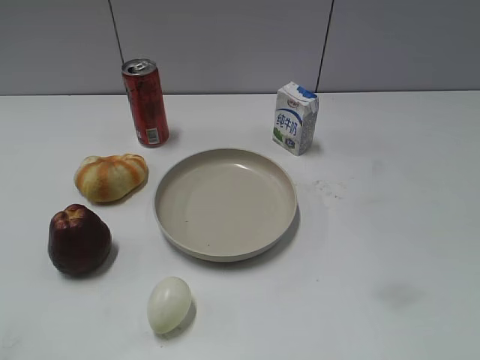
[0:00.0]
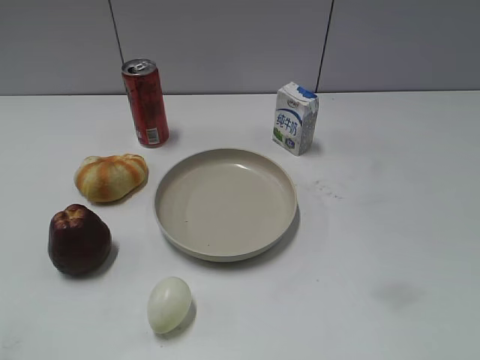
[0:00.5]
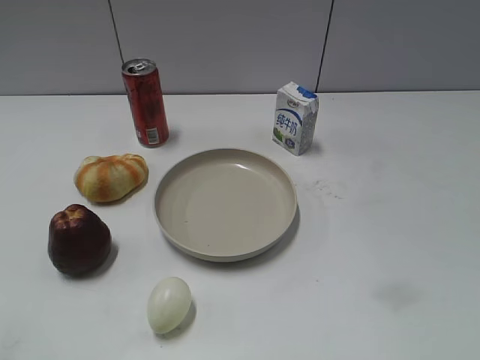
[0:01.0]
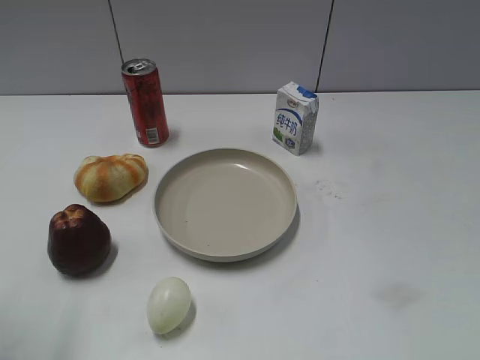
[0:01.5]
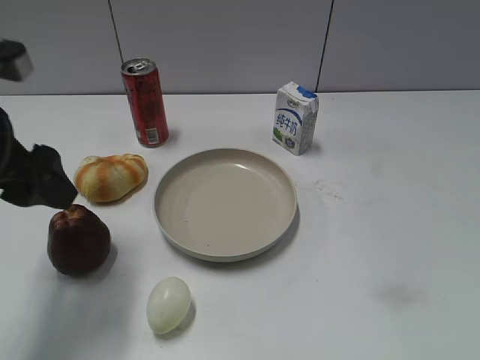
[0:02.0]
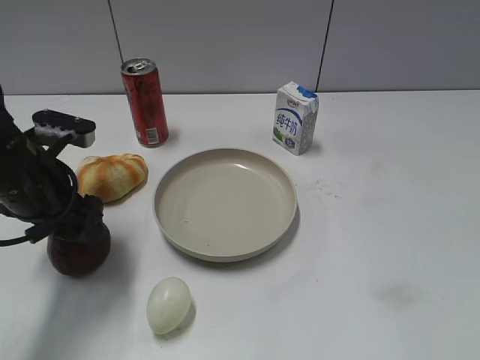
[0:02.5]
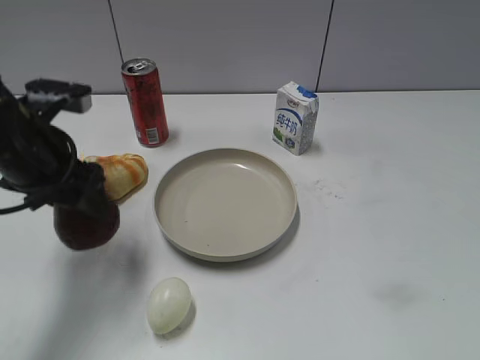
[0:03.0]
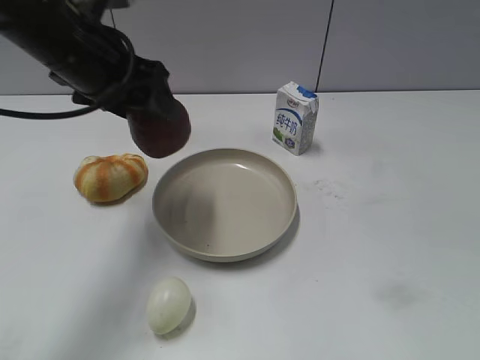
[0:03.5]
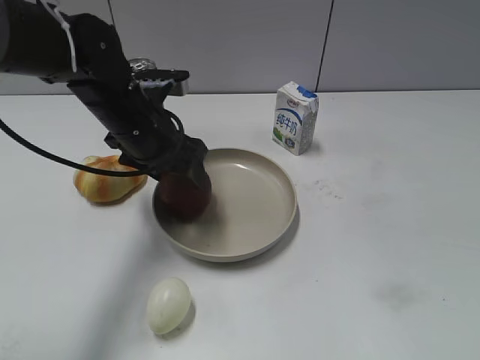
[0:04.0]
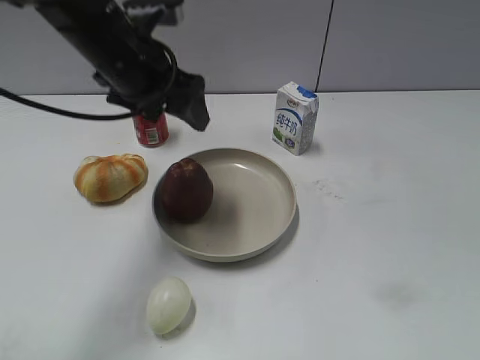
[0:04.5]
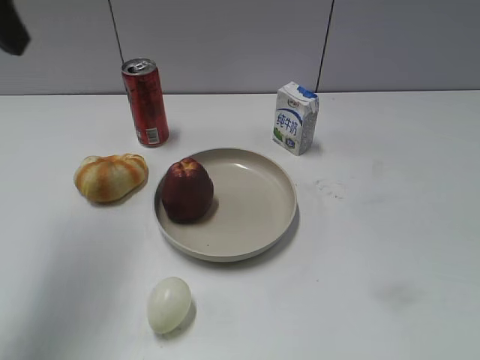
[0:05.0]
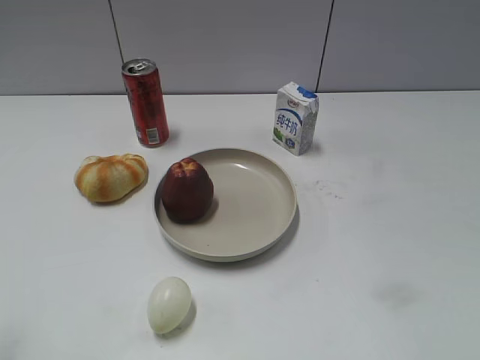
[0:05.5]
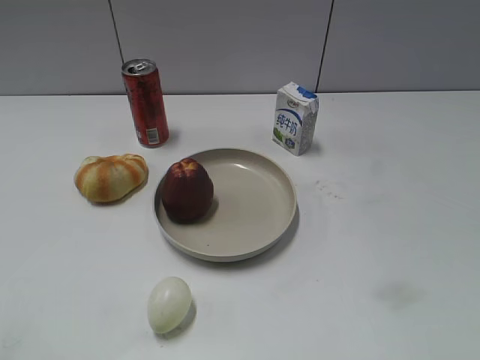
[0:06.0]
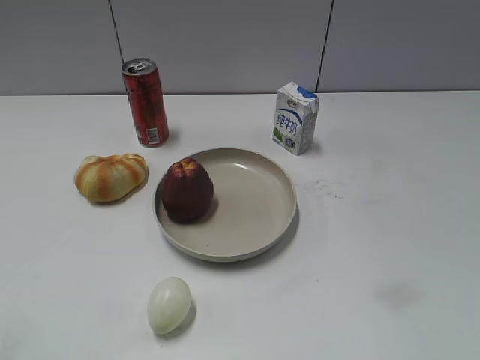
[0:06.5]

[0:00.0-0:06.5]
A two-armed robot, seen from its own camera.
Step, 0:01.5 to 0:02.5: Grasp the apple with left gripper.
Step, 0:03.0 to 0:04.0: Place the apple on the plate with left gripper.
0:02.0 to 0:04.5: The left gripper goes up and down, approximately 10 cm each way, reversing 3 times, and closes and opens again.
0:04.5 to 0:06.5: The left gripper is displaced backward and to the left by about 40 cm, and closes.
